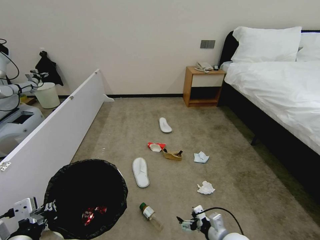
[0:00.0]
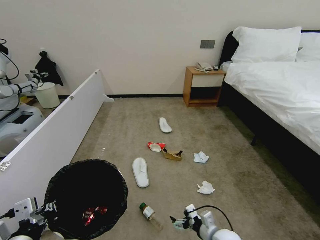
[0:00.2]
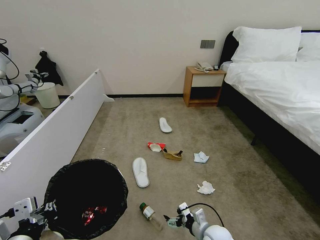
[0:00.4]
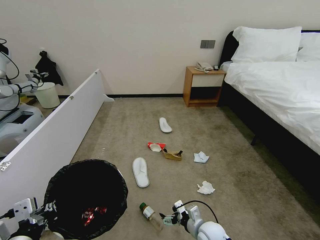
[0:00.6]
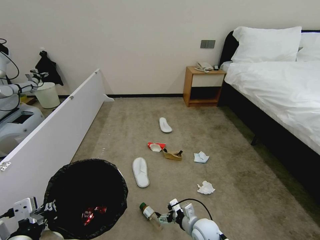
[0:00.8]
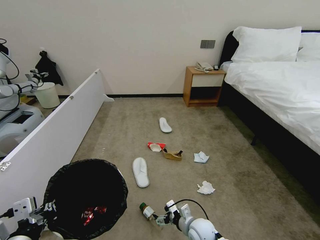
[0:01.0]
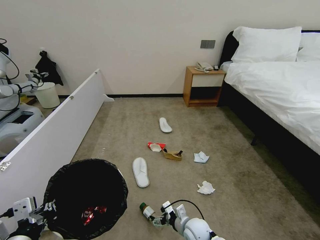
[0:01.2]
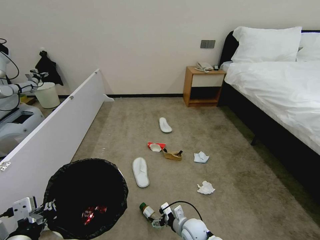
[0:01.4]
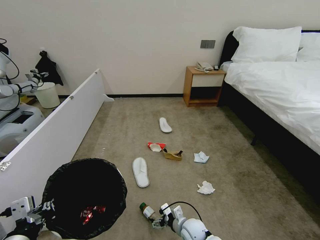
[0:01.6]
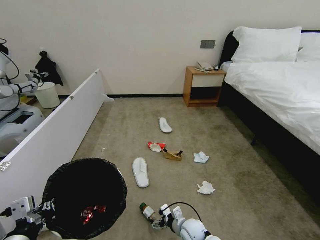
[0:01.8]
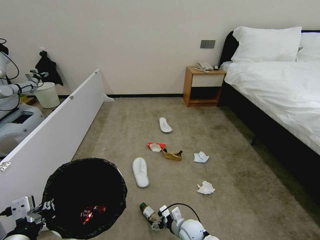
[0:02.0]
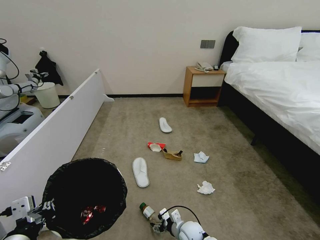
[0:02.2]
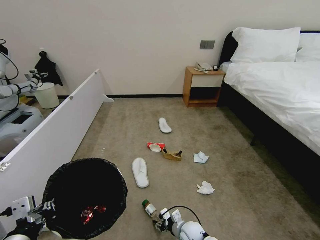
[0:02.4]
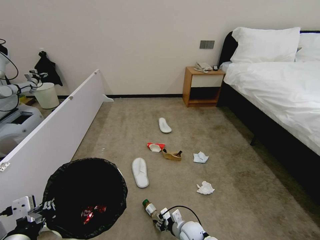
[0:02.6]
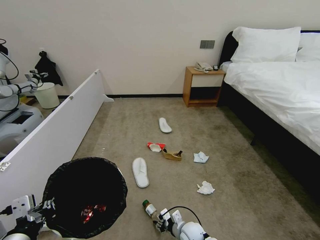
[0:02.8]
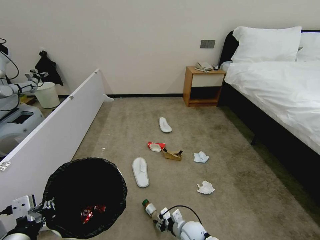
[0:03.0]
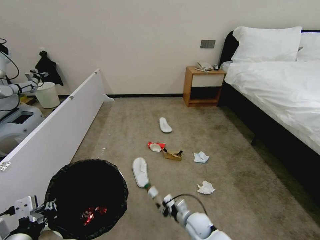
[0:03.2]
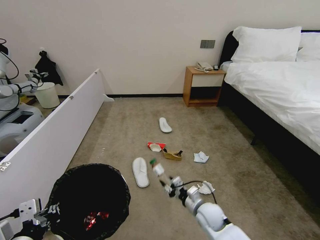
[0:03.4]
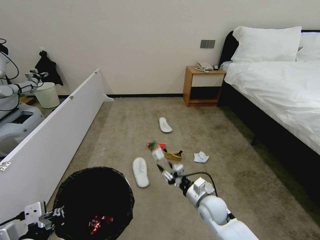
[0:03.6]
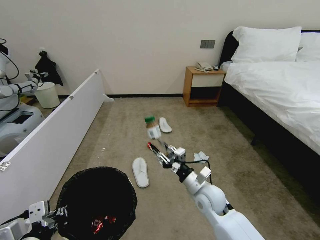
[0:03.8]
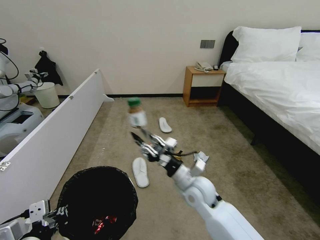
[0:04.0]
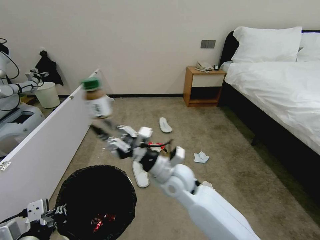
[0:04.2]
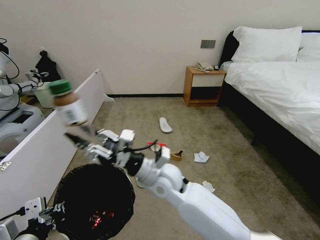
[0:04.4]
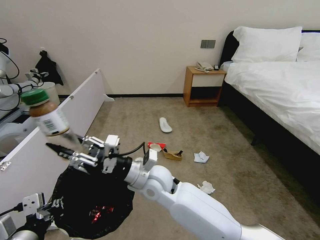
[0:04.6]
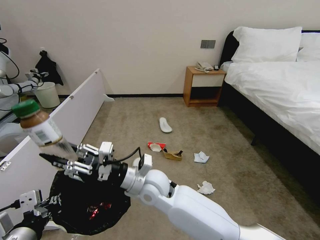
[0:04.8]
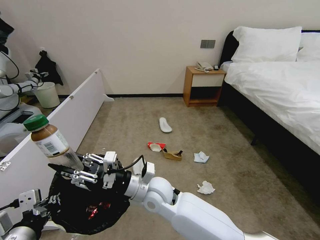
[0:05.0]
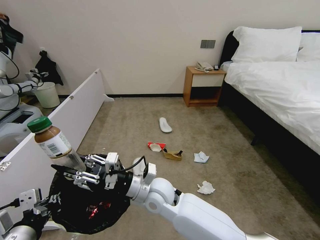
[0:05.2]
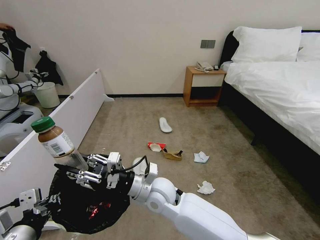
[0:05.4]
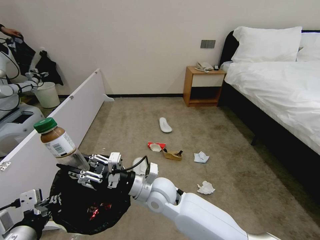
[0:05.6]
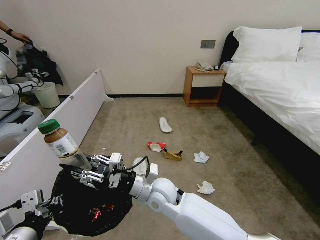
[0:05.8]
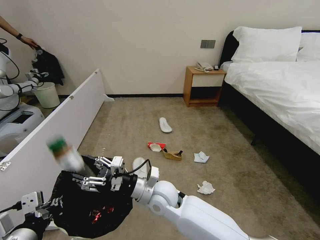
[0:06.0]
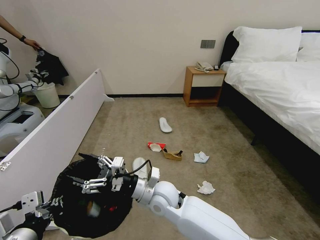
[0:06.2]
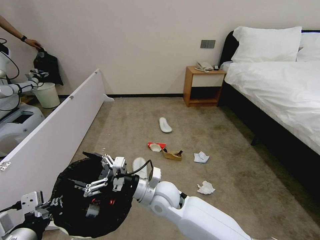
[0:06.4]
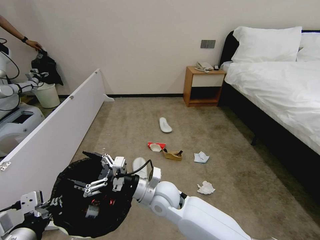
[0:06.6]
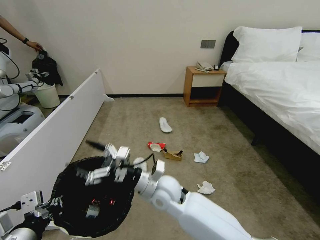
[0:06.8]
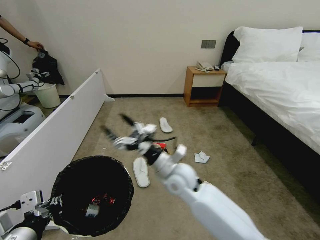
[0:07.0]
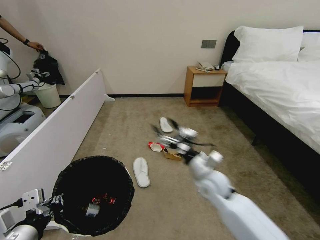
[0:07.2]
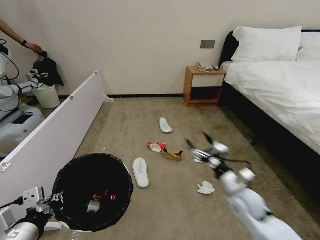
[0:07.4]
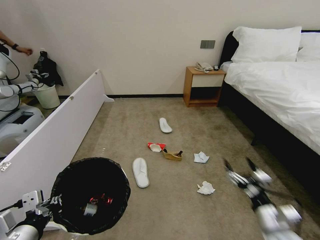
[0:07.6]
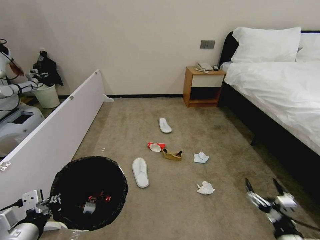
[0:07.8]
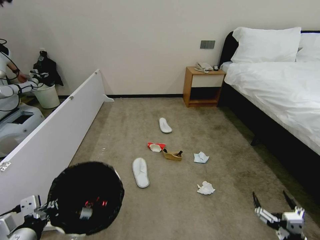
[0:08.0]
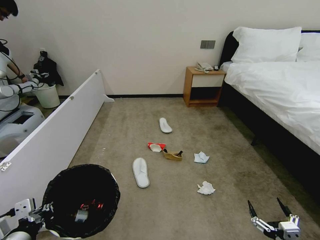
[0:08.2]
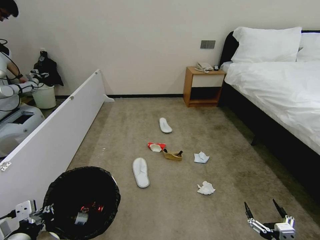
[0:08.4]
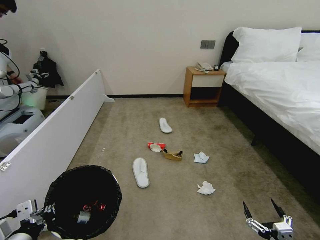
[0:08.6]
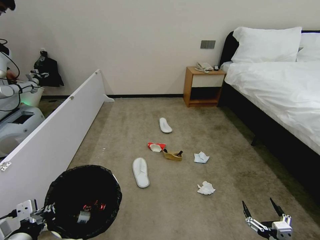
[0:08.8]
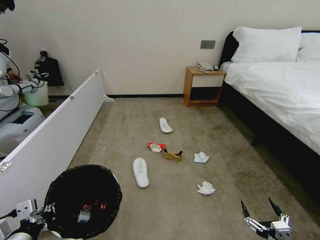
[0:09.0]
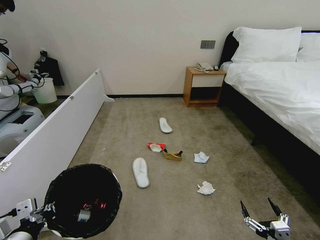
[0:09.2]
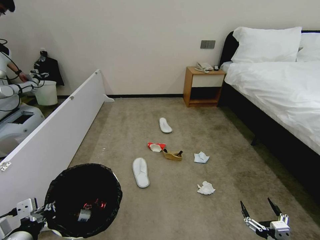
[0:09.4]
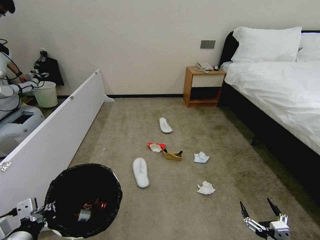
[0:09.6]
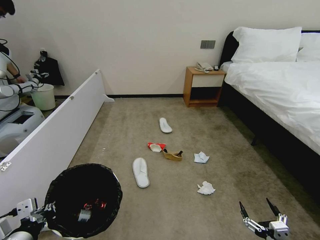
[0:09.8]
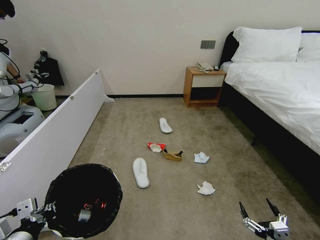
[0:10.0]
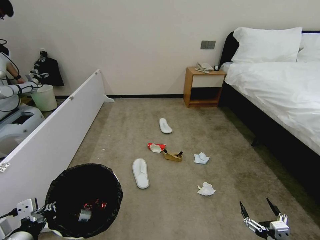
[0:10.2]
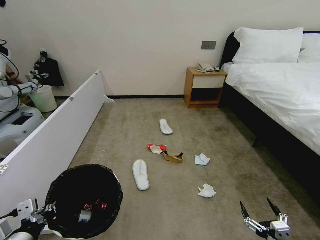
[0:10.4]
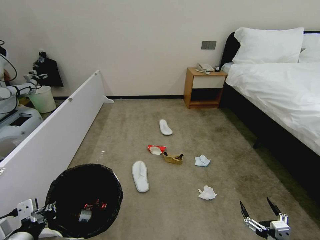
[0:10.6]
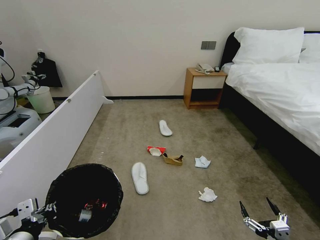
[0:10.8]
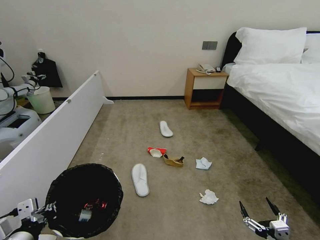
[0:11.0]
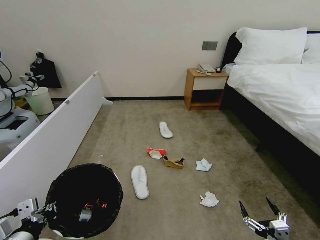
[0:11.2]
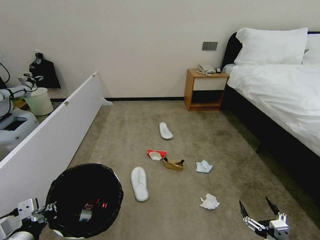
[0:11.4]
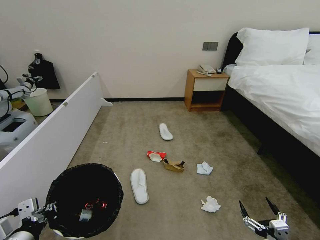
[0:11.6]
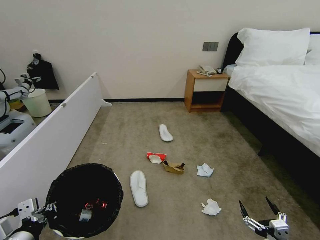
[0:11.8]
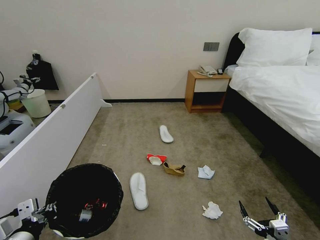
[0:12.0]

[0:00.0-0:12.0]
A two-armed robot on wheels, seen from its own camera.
Task of the whole recording: Pick up the trash bin, then pick up the garbage from the floor and place it into the trash bin.
0:00.0 to 0:01.6: The right gripper moves to the left, downward and forward, roughly 15 cm.
0:01.6 to 0:03.0: The right gripper closes up.
0:03.0 to 0:04.4: The right gripper goes approximately 35 cm upward.
0:04.4 to 0:06.0: The right gripper travels downward by roughly 5 cm.
0:06.0 to 0:07.6: The right gripper travels to the right by approximately 35 cm, and opens up.
0:07.6 to 0:09.0: The right gripper is displaced backward and downward by about 15 cm.
0:09.0 to 0:12.0: Both grippers stay about where they are.

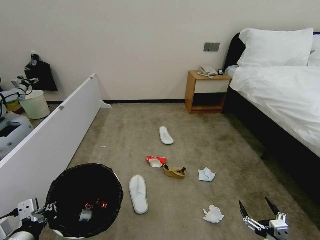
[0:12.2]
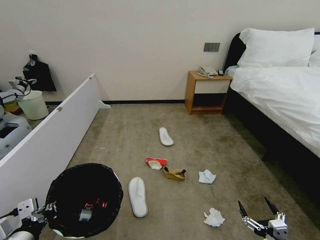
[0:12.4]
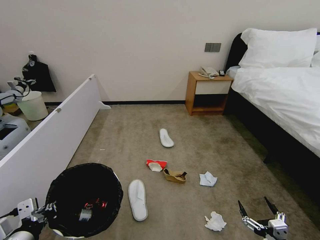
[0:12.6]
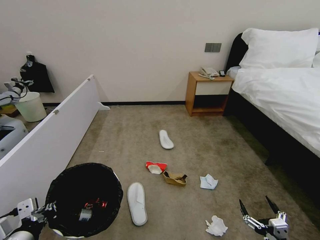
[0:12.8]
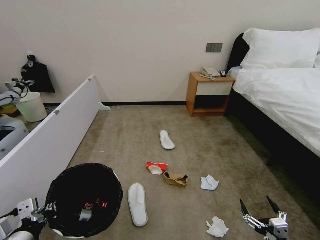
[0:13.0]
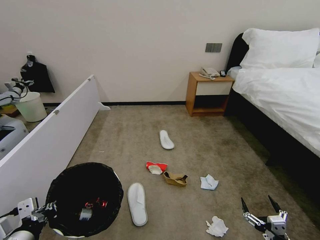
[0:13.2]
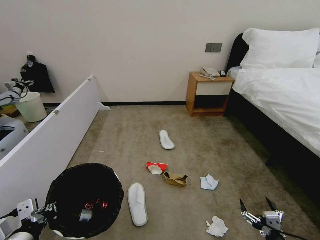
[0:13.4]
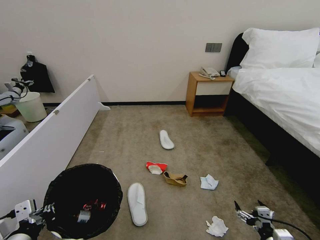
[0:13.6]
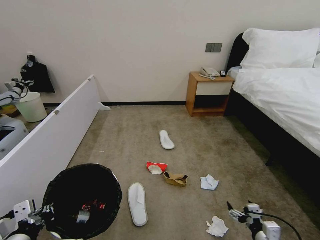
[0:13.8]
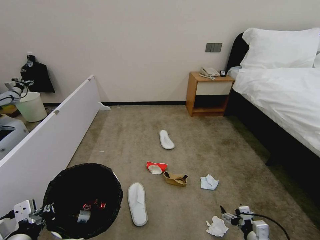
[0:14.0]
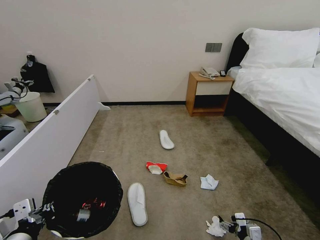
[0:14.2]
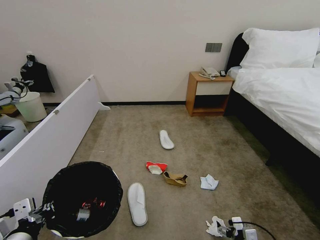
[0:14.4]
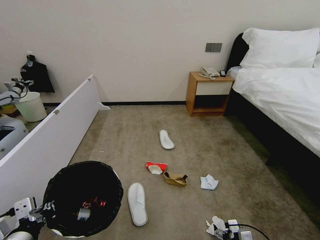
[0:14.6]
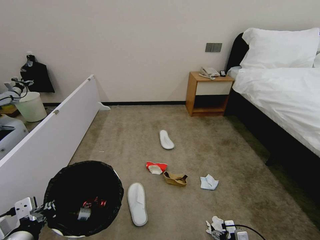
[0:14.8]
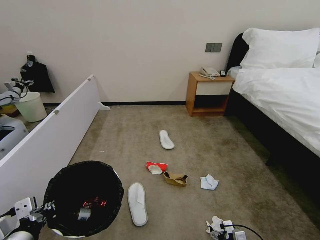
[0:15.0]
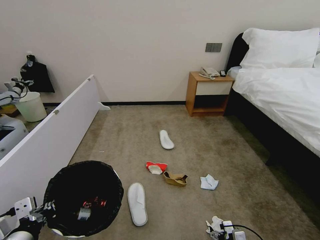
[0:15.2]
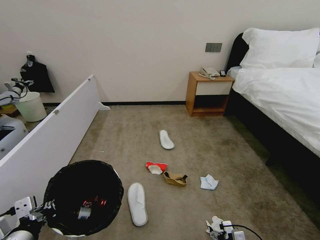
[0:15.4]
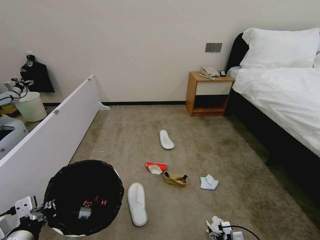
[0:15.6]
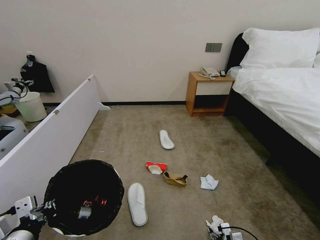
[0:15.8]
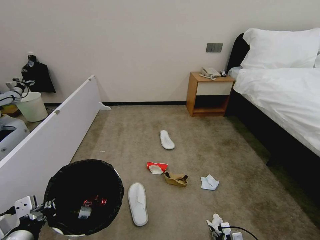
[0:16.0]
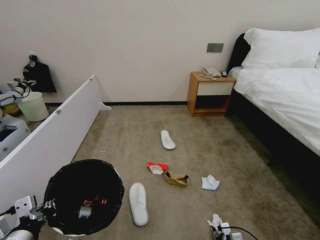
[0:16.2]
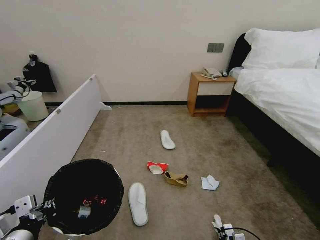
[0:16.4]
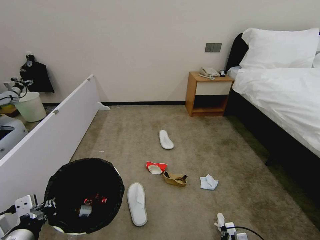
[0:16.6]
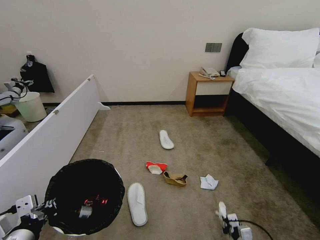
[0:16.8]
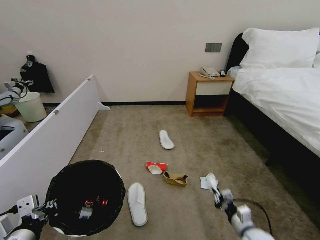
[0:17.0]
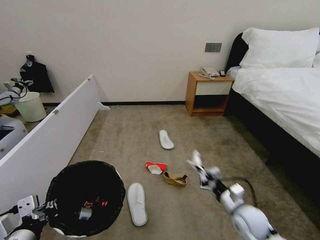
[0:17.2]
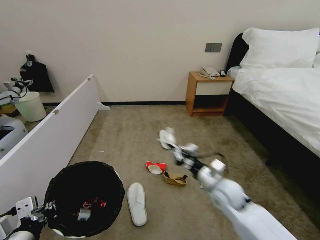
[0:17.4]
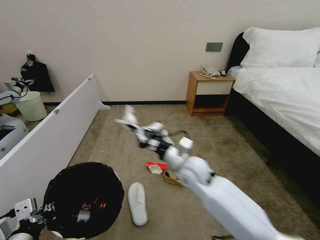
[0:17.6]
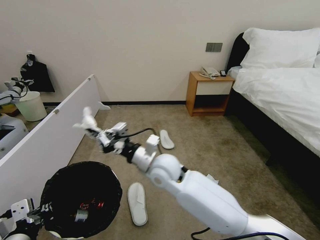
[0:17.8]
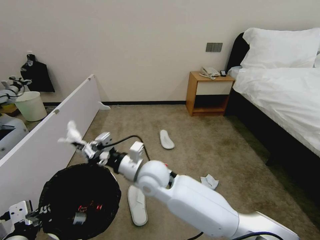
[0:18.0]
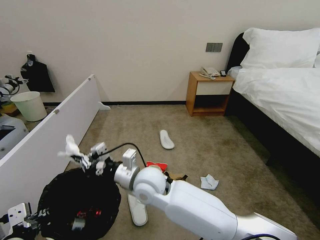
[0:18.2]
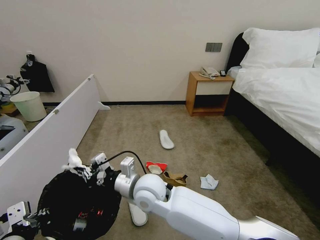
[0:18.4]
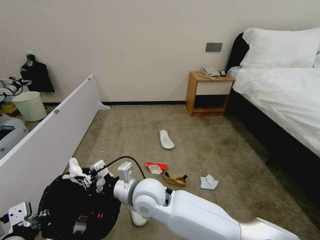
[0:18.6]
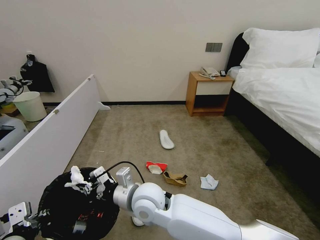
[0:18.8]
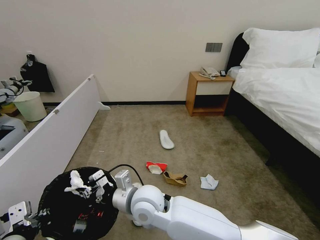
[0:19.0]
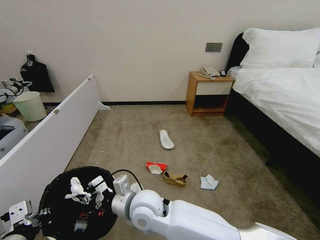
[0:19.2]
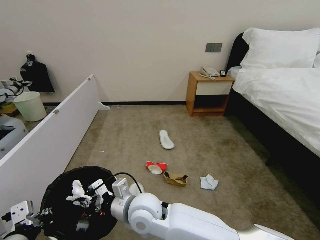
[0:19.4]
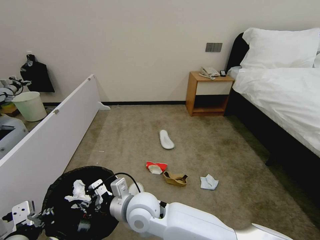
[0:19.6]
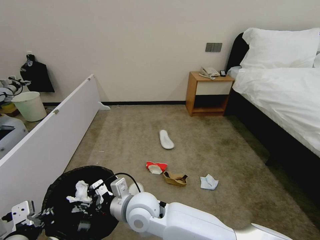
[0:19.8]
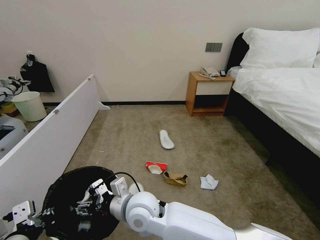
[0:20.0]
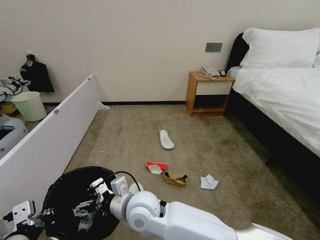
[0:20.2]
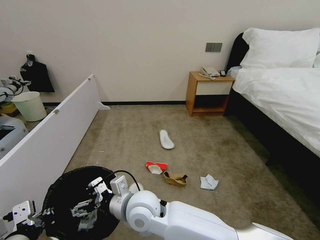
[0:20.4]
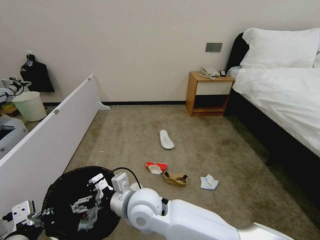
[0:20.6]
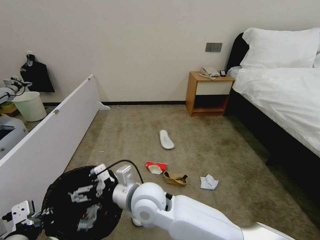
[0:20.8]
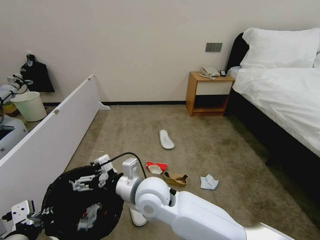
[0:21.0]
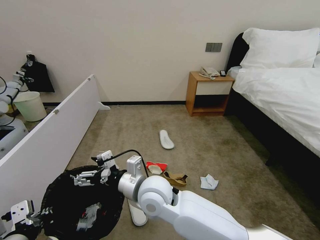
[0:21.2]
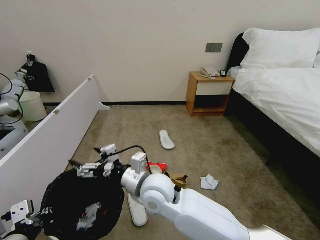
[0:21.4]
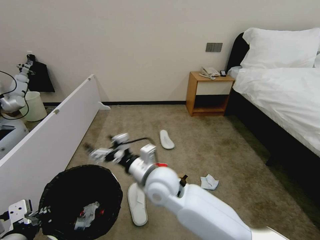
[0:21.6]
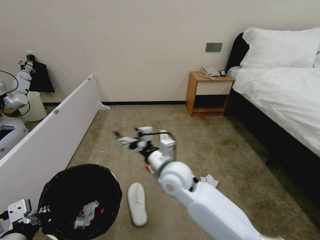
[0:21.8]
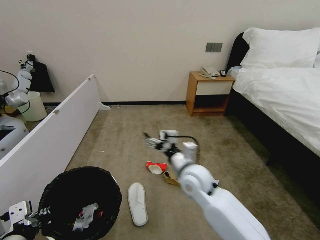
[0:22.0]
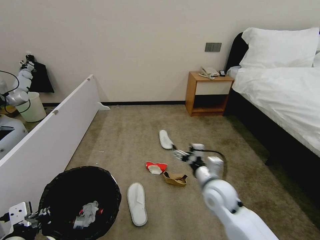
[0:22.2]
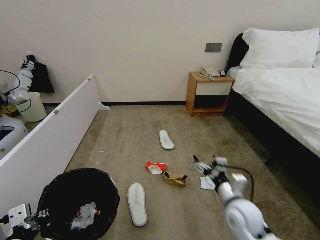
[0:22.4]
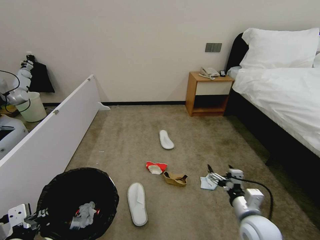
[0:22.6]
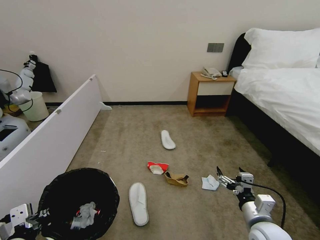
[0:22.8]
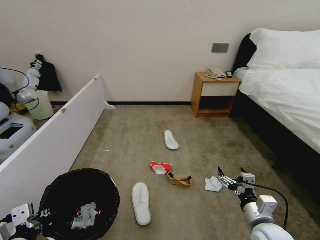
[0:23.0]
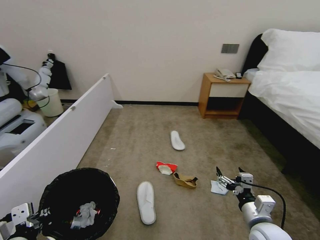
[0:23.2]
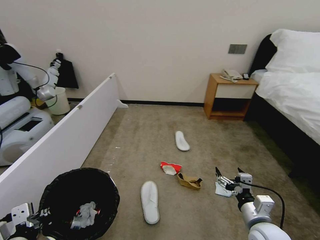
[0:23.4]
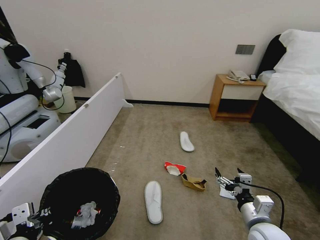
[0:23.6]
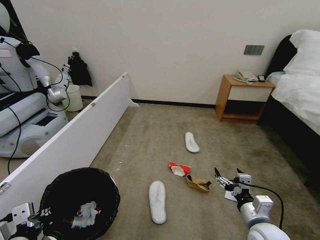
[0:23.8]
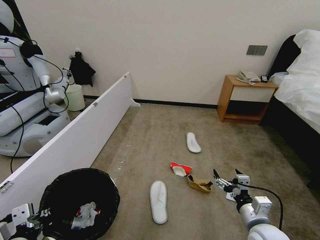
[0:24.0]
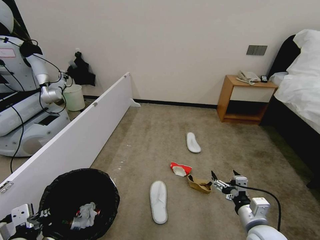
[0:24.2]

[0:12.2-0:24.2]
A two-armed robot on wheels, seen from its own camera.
Task of the whole recording: Pick up the trash bin, then pick up the garbage from the floor and place it into the trash bin.
0:12.2 to 0:13.8: The right gripper shifts roughly 10 cm forward.
0:13.8 to 0:15.2: The right gripper is displaced downward by approximately 10 cm.
0:15.2 to 0:16.6: The right gripper closes up.
0:16.6 to 0:18.2: The right gripper travels to the left and upward by some 50 cm.
0:18.2 to 0:19.8: The right gripper goes about 5 cm backward, and opens.
0:19.8 to 0:21.2: The right gripper moves upward, about 5 cm, and opens up.
0:21.2 to 0:22.6: The right gripper heads to the right, covering some 30 cm.
